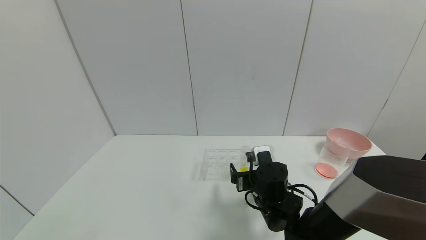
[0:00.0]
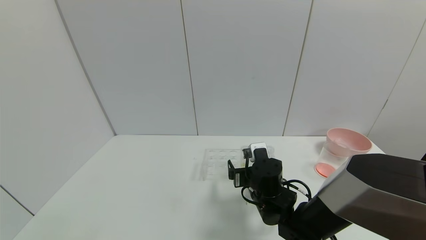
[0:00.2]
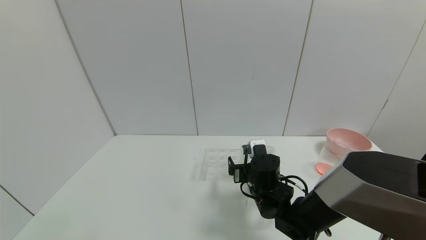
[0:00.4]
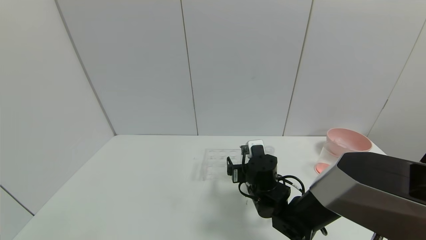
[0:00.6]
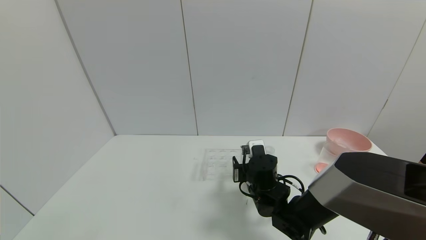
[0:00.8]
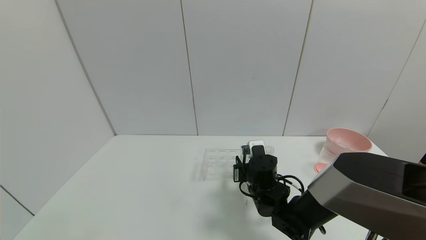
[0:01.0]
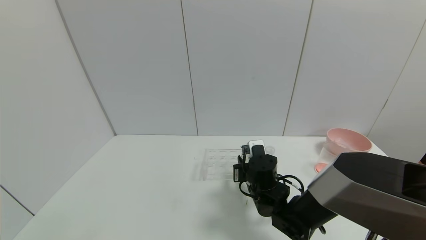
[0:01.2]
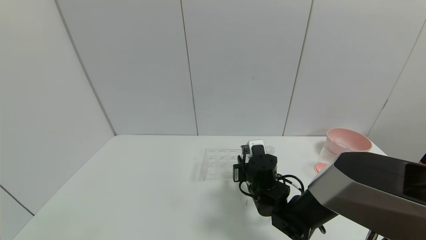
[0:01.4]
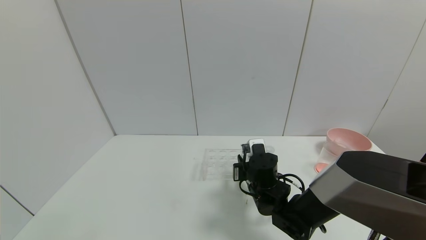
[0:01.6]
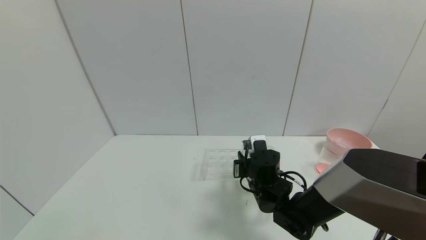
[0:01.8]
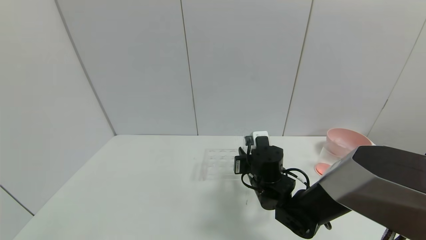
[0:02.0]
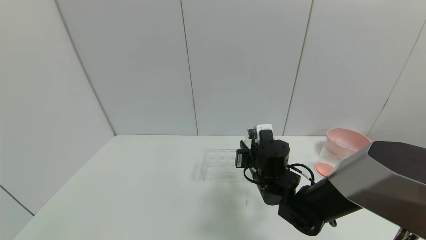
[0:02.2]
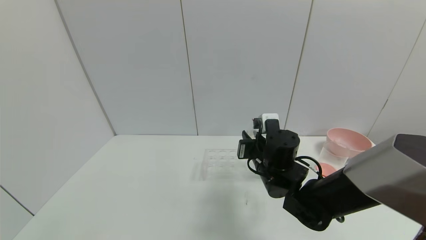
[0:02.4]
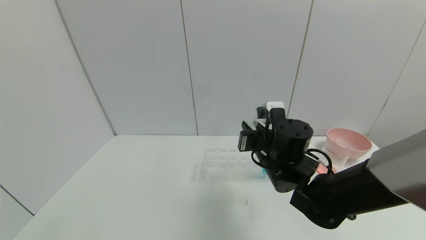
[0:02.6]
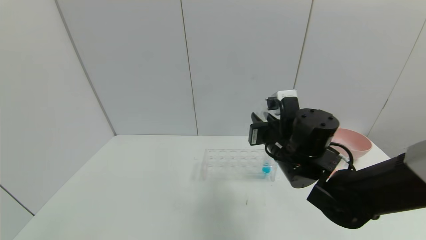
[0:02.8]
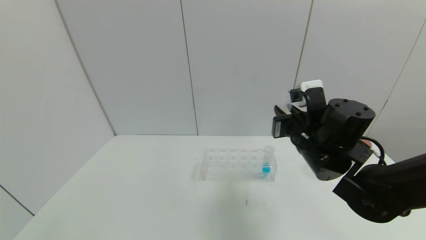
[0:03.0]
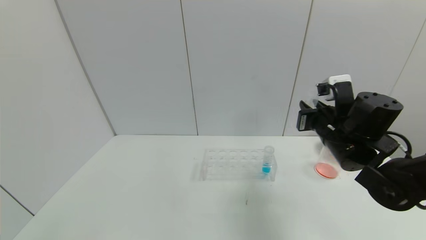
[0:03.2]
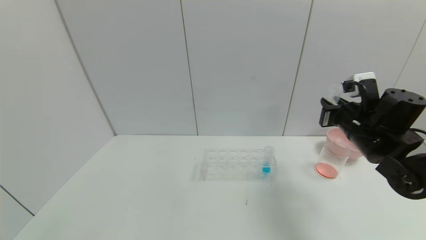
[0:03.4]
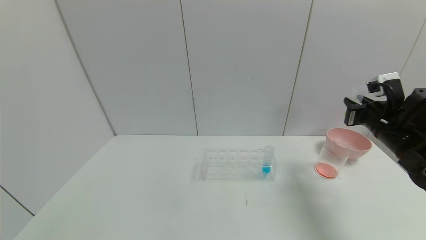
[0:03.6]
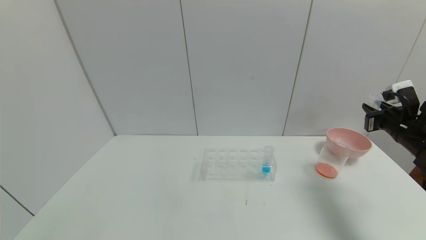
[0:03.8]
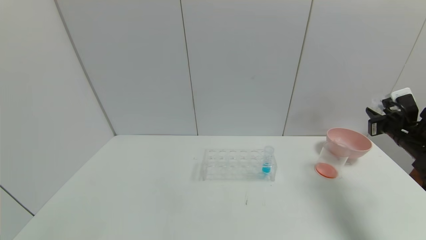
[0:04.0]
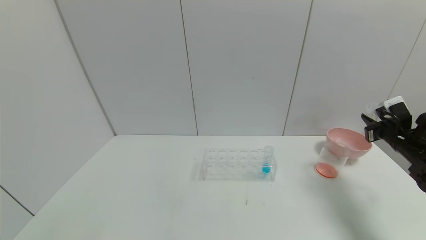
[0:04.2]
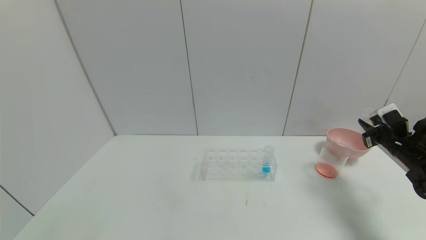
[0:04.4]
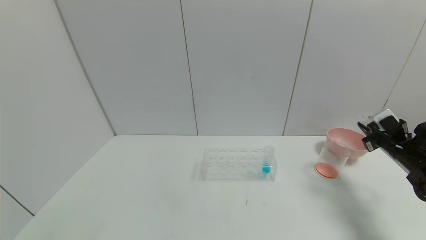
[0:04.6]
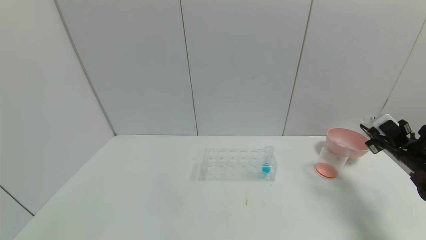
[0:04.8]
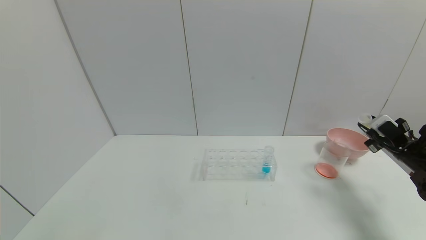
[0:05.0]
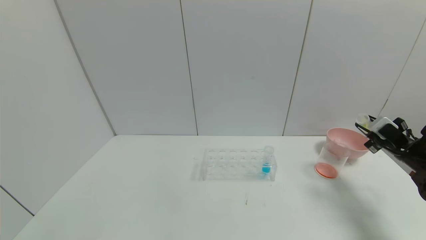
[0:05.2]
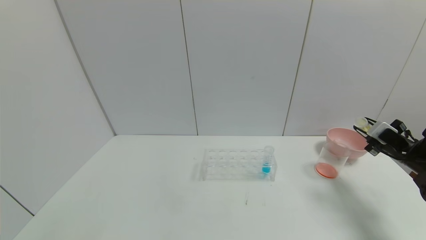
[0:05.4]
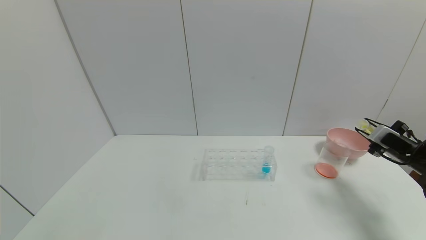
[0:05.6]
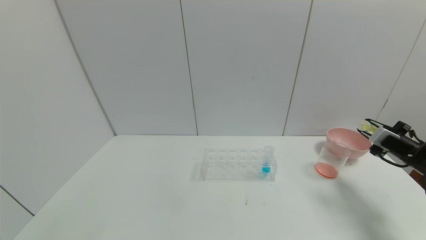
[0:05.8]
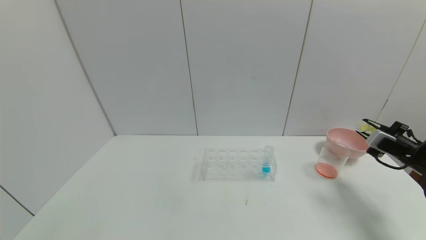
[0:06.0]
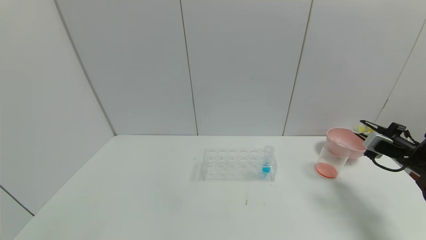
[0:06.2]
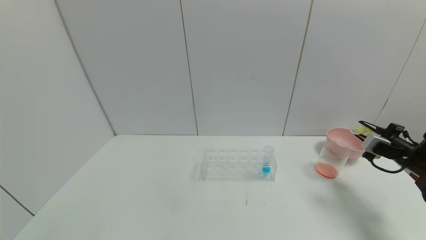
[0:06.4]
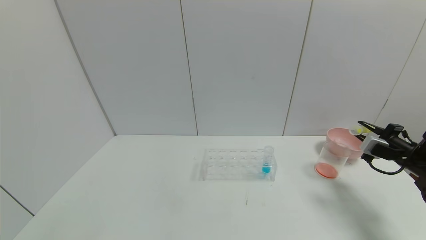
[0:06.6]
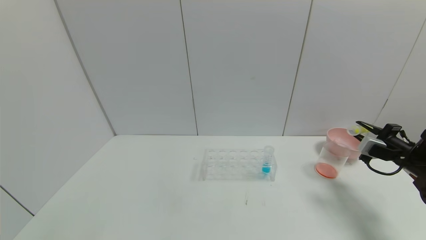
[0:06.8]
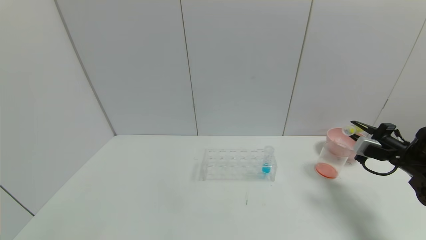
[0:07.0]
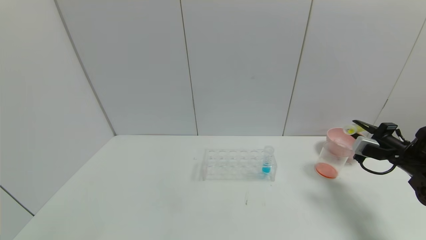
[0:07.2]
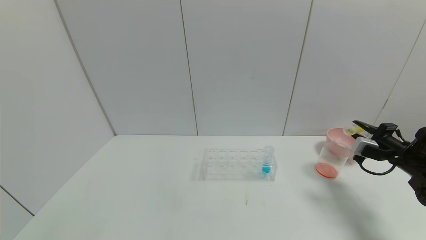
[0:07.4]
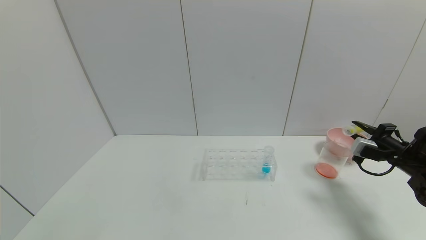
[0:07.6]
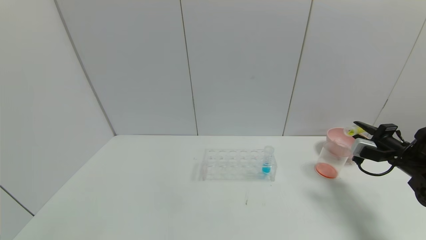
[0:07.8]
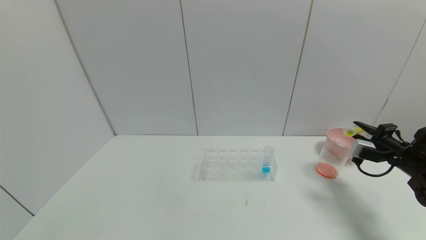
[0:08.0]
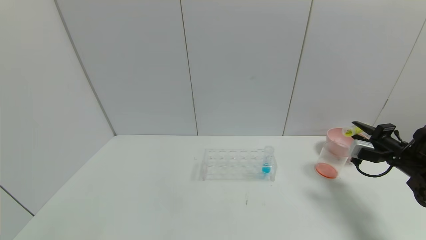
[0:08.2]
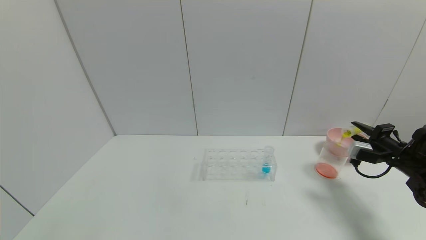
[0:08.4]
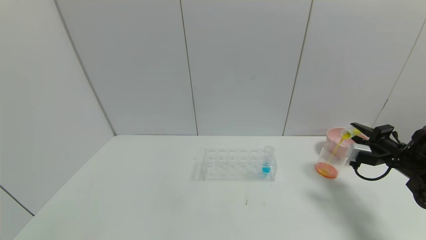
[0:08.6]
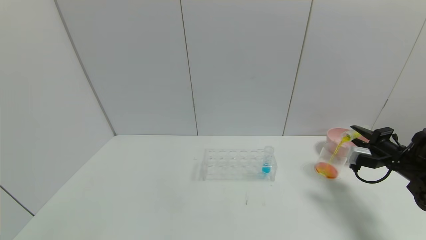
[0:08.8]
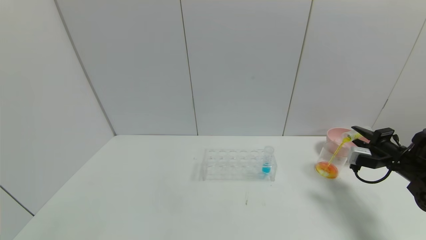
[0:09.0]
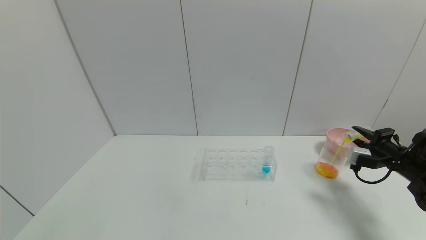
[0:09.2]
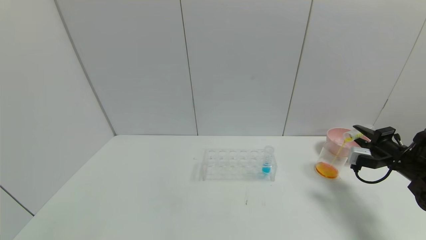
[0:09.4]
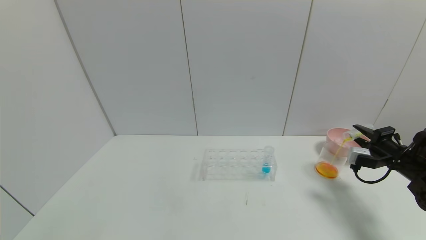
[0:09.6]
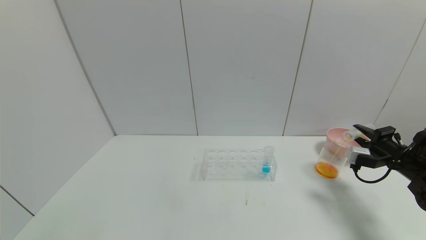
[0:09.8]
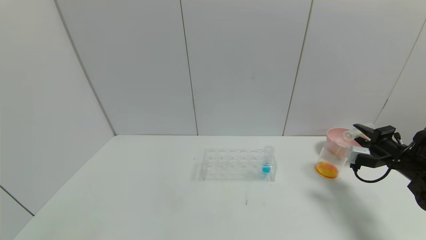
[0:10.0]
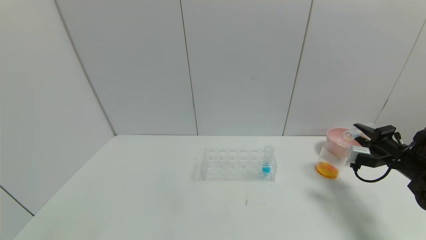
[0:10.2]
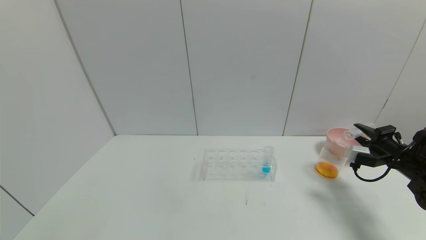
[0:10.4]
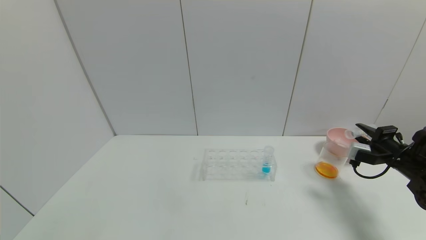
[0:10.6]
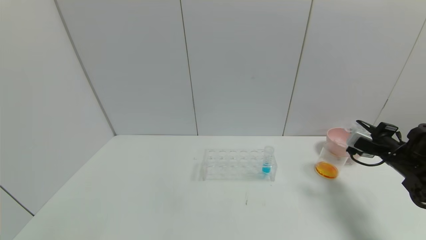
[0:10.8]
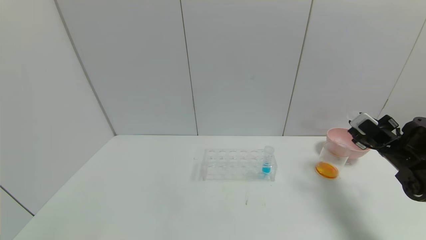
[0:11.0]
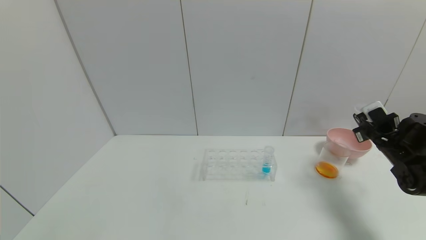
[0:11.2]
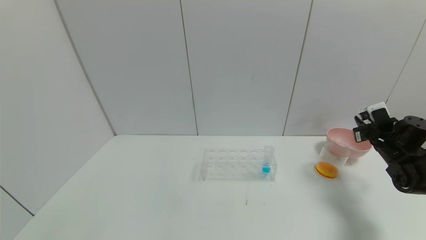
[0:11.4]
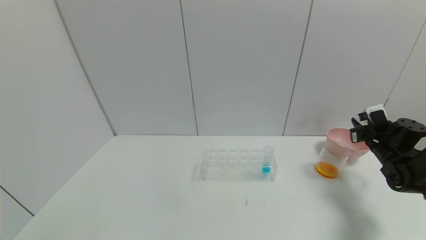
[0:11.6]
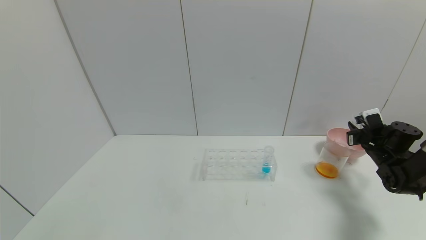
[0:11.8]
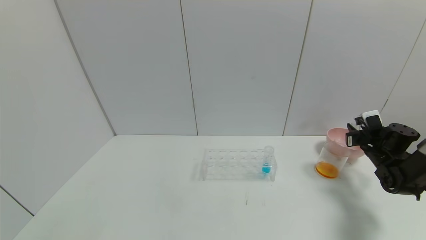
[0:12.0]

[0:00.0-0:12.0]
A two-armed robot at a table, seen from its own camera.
Task of the whole recording: pick up the test tube with yellow pigment and the test tube with red pigment by grippers and pour them into the beaker.
Step, 0:01.6 to 0:10.4: Pour the yellow reagent into the graduated cylinder with the right gripper.
0:00.0 to 0:01.6: The right gripper closes.
0:01.6 to 0:03.0: The right gripper heads upward and to the right, covering some 15 cm.
0:03.0 to 0:04.4: The right gripper heads to the right, covering some 25 cm.
0:06.0 to 0:07.6: There are only small adjustments of the grippers.
0:07.6 to 0:10.4: There are only small adjustments of the grippers.
0:10.4 to 0:12.0: The right gripper travels forward by about 10 cm.

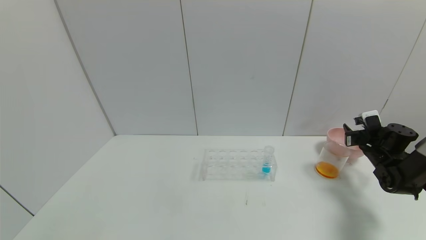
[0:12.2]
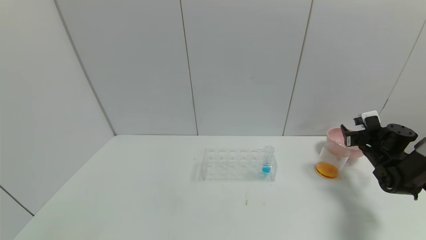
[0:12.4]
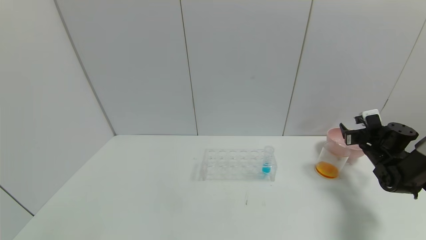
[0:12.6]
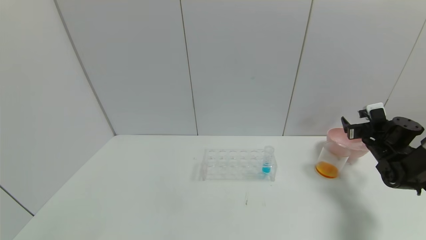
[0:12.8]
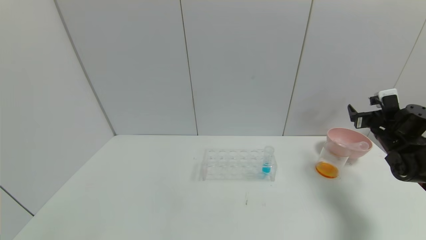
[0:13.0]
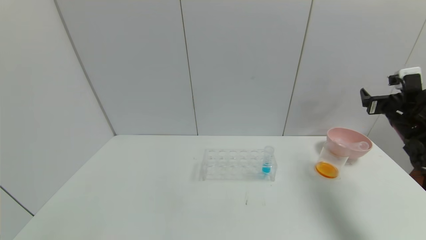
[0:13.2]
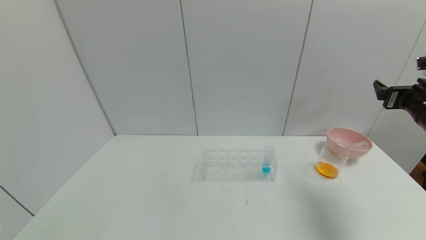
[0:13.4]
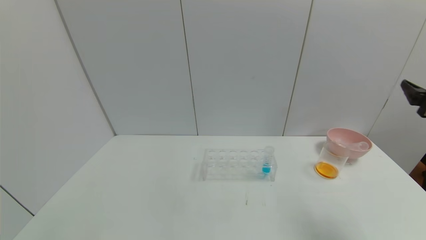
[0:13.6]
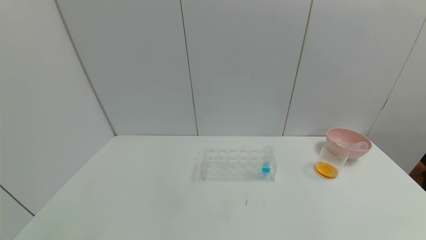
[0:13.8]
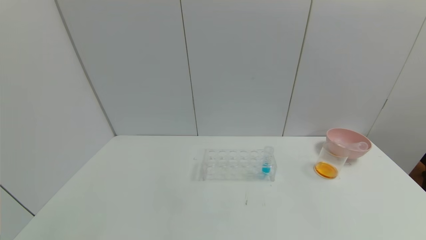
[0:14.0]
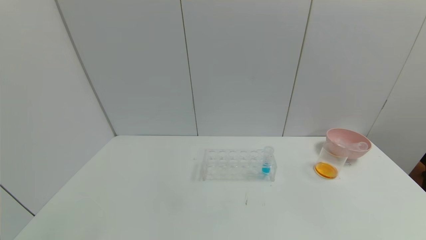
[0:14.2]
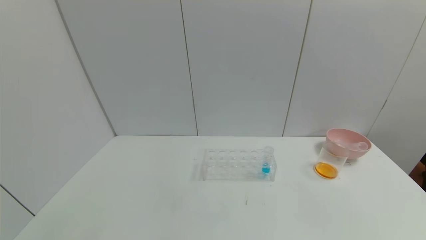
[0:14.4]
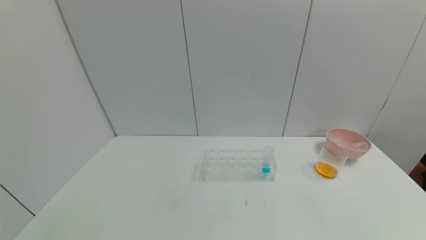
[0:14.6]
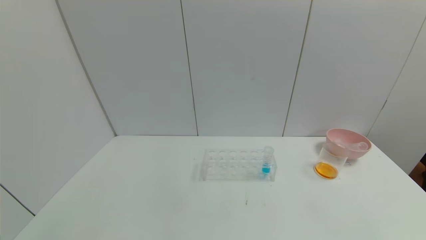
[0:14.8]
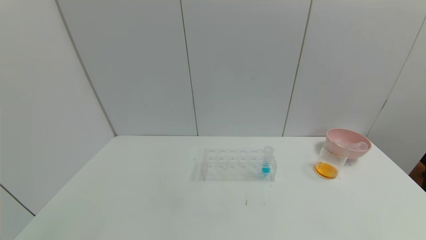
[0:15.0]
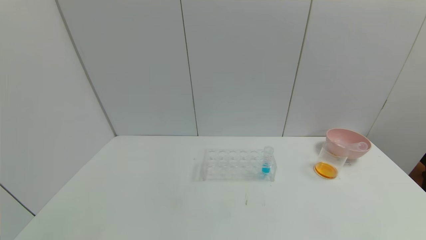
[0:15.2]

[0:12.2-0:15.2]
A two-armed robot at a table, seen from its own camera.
Task of the whole recording: pick up the test tube with yellow pigment and the test tube with red pigment by grippers and pour them into the beaker.
0:12.2 to 0:13.8: The right gripper heads backward and upward, covering roughly 35 cm, and opens its fingers.
